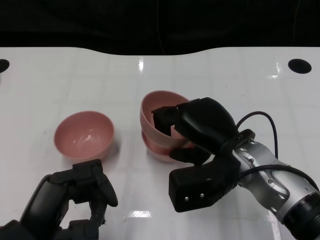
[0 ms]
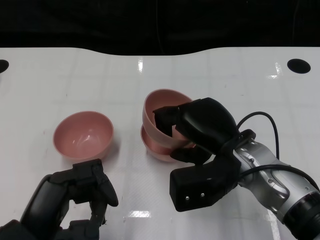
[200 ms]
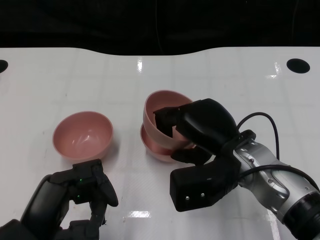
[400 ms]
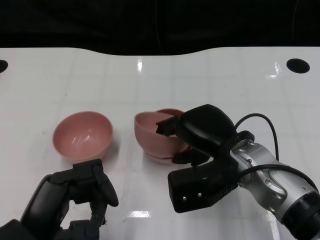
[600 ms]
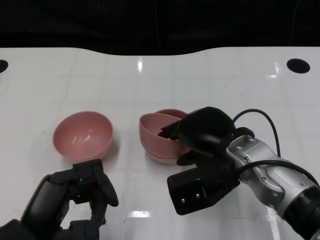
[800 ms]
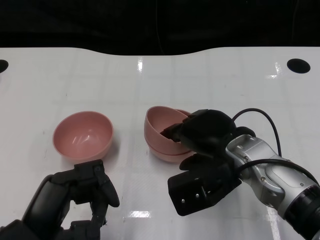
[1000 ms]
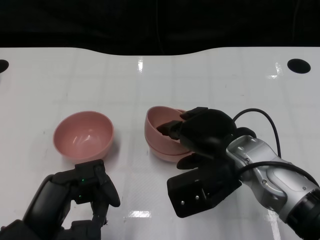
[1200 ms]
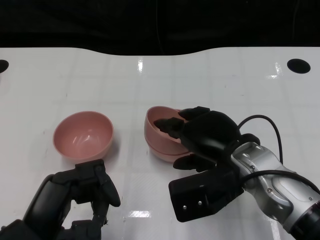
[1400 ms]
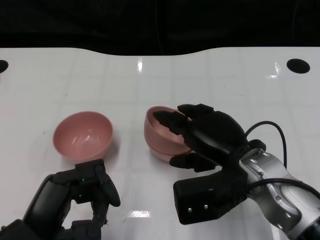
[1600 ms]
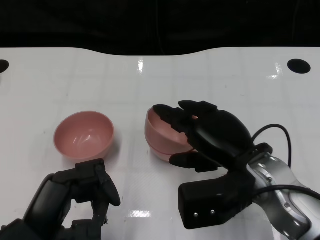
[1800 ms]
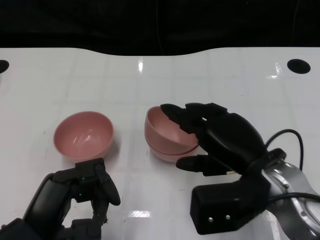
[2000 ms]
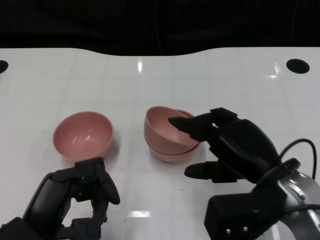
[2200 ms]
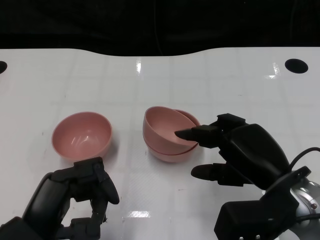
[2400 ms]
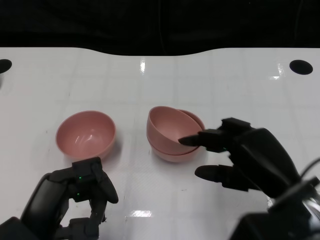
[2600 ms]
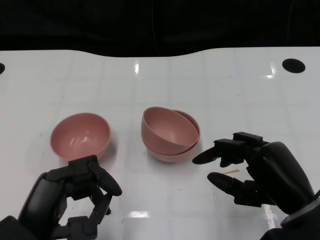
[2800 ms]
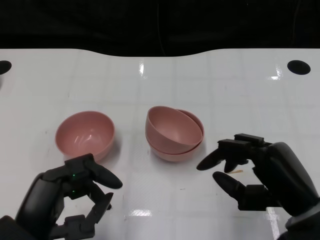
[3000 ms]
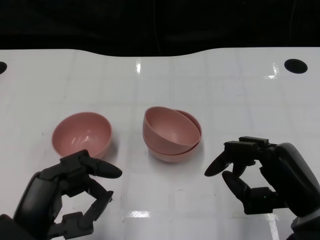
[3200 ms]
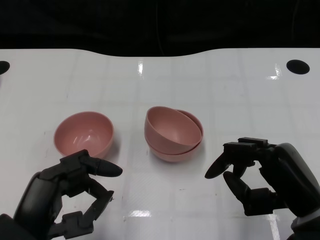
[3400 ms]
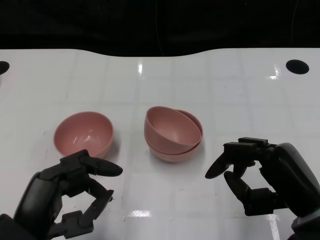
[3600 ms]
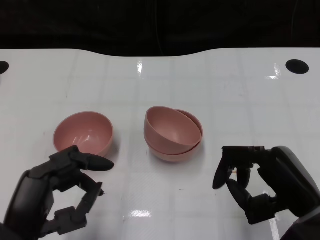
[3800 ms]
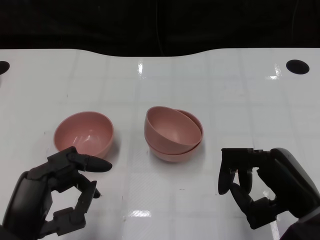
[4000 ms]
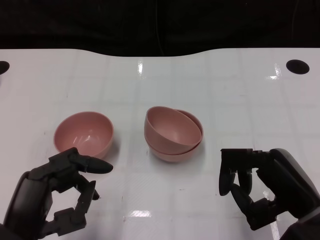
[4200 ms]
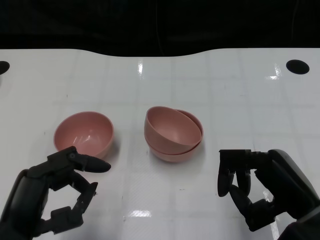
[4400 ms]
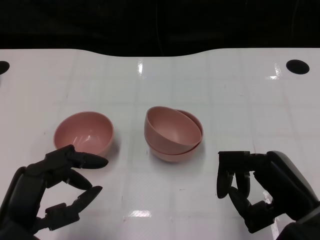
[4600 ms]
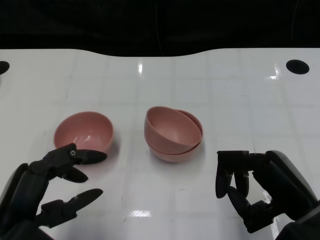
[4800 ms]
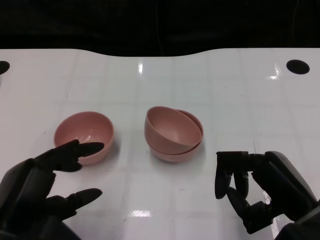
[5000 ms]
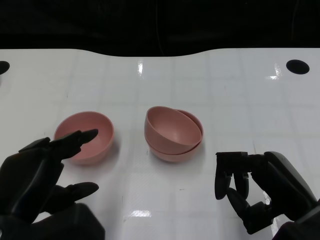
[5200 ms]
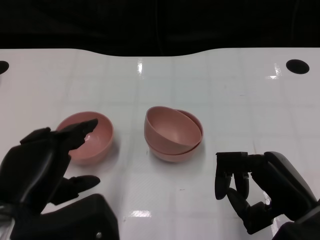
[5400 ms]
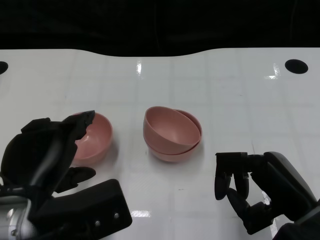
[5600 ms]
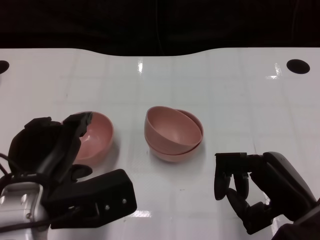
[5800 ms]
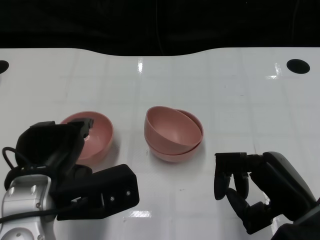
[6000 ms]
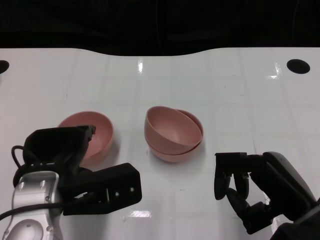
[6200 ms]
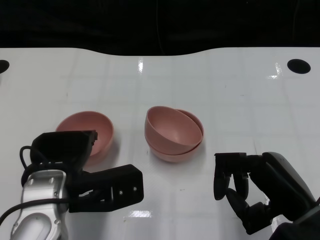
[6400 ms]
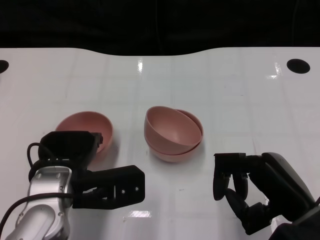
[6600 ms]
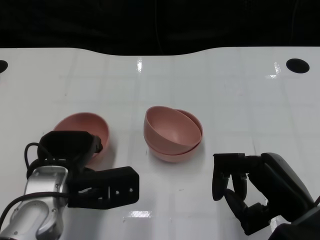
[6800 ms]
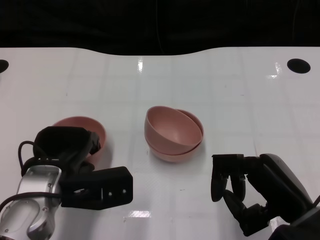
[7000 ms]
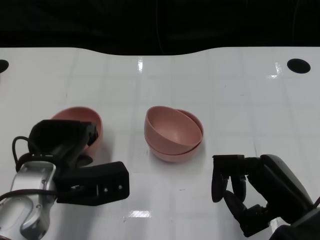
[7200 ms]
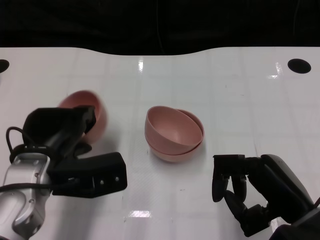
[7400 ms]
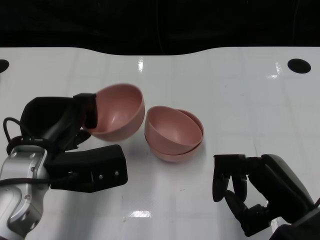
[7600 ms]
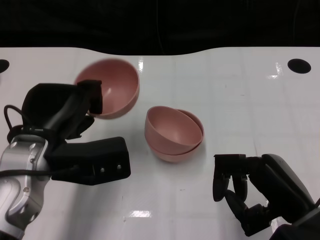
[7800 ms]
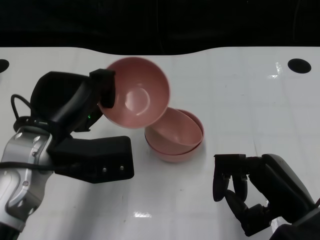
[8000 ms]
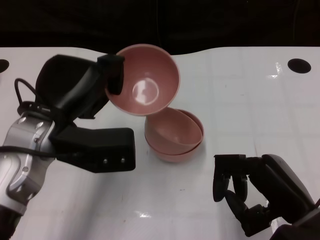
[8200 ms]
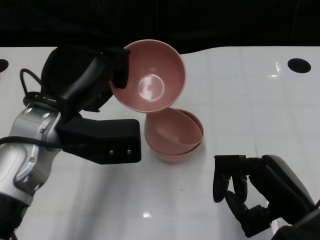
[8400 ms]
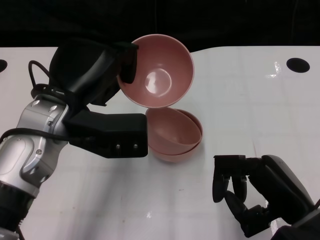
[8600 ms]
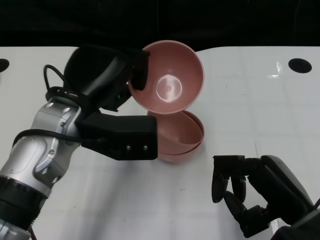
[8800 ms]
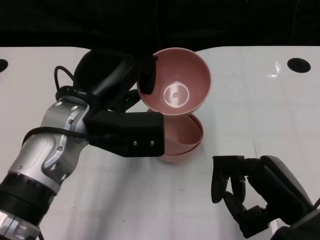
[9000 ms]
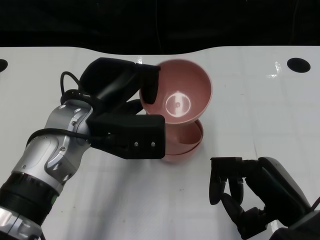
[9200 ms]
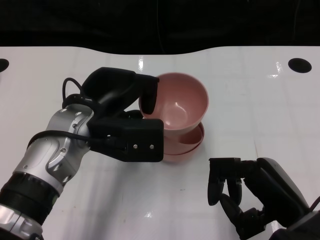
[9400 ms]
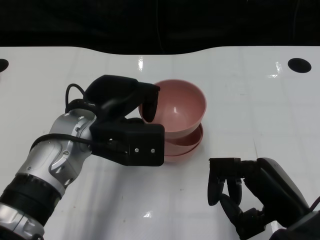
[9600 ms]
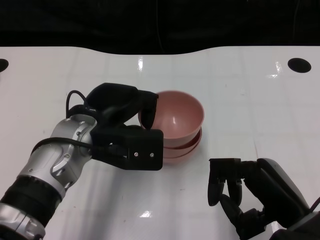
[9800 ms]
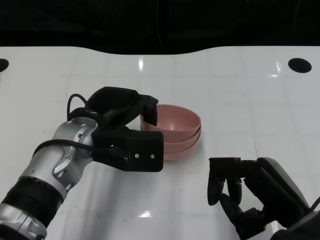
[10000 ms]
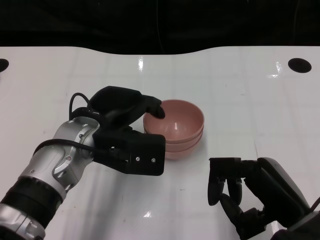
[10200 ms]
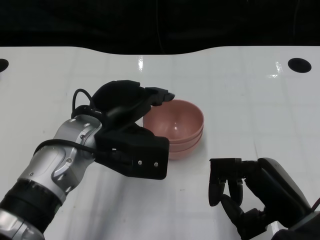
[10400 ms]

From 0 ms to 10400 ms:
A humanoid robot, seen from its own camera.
Task of the whole recording: Pick up the bowl on one side of the table and place it on top of the middle bowl, then pick up the bowl on the other side of the table and place it on top of the middle bowls.
Step, from 2000 ms to 7000 ms: Grasp the bowl on the left with the left gripper.
From 1400 ms to 3000 ms: The right hand heads to the right and backward, covering some 10 cm.
From 3000 ms to 4400 ms: The hands stay close to where they were, moving slightly.
From 4400 ms to 6000 ms: The left hand goes some 5 cm forward.
From 6000 ms to 7400 ms: The left hand shifts by approximately 5 cm.
From 7400 ms to 9000 ms: The left hand is displaced upward and to the right by roughly 10 cm.

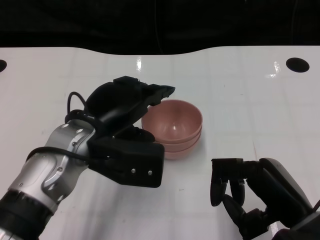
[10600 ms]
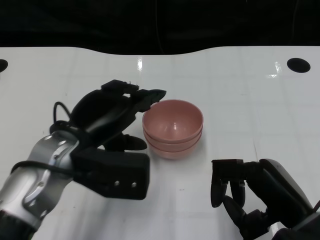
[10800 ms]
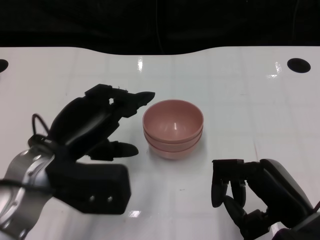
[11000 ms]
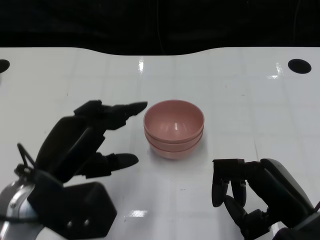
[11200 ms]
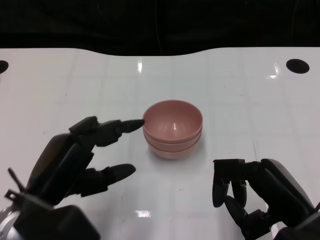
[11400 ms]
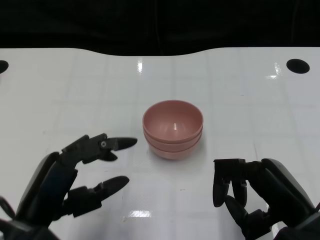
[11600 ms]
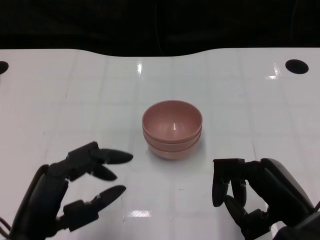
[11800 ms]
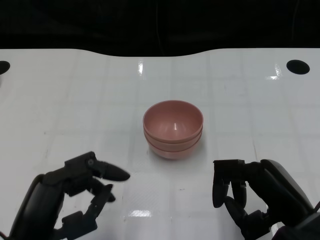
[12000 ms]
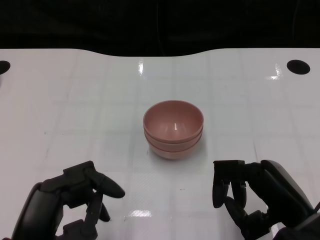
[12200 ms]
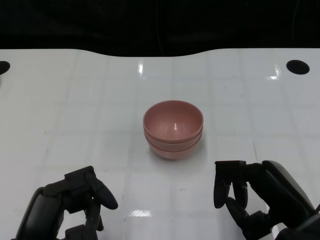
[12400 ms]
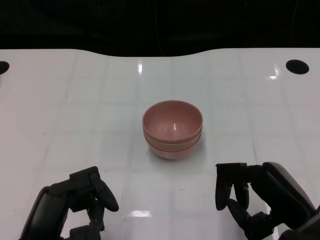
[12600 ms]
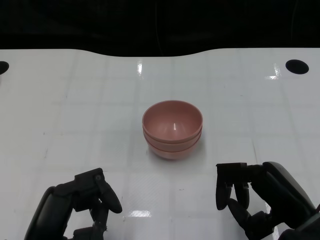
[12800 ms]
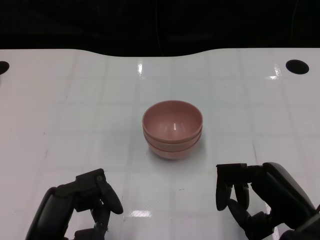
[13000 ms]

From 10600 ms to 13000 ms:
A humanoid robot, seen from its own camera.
Task of the whole recording: Pick up the bowl on one side of the table and place it on top of the middle bowl, then pick up the bowl on the other side of the table and place it on top of the middle bowls.
From 10600 ms to 11800 ms: The left hand heads backward and to the left, covering approximately 15 cm.
From 11800 ms to 13000 ms: The hands make only small movements.

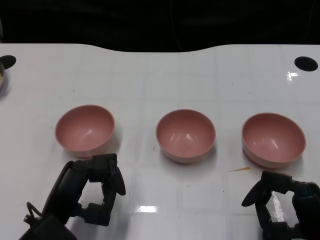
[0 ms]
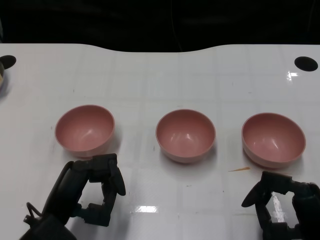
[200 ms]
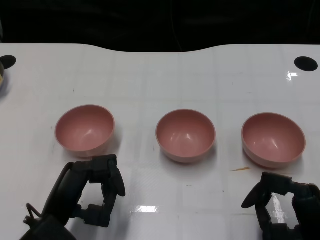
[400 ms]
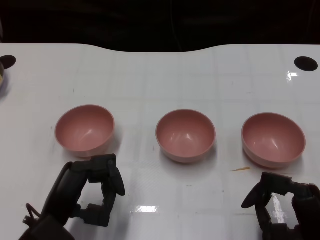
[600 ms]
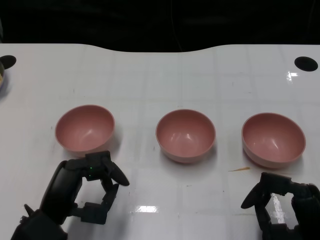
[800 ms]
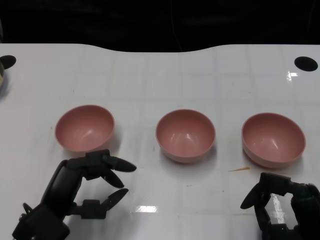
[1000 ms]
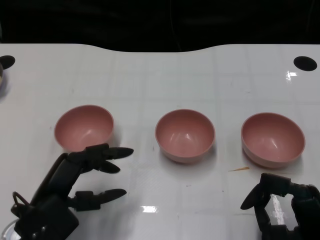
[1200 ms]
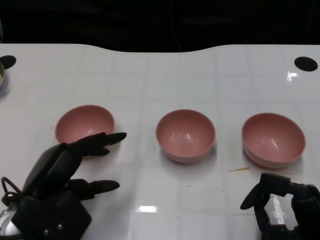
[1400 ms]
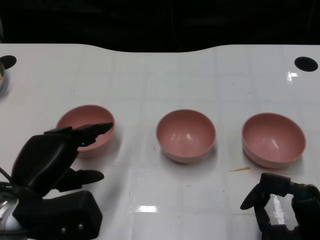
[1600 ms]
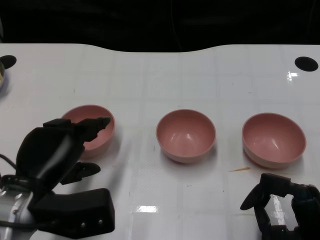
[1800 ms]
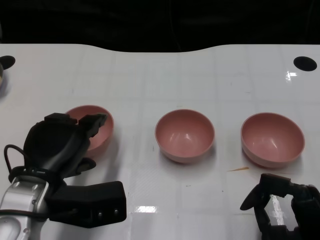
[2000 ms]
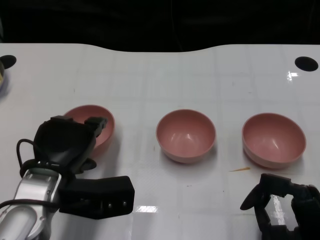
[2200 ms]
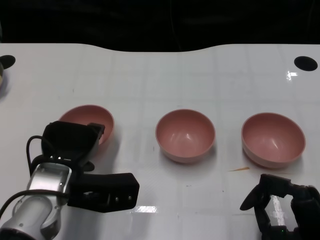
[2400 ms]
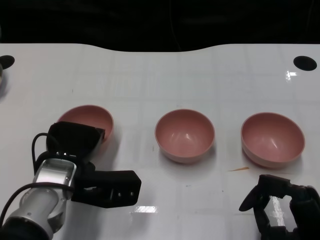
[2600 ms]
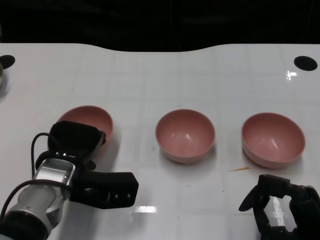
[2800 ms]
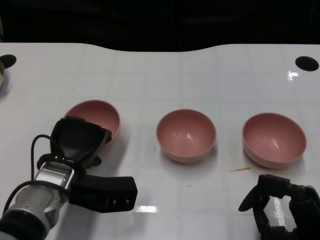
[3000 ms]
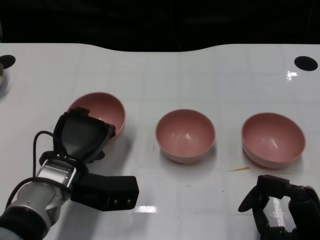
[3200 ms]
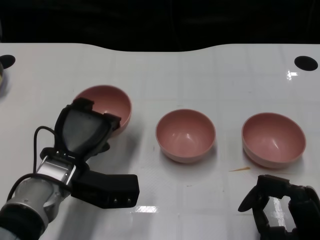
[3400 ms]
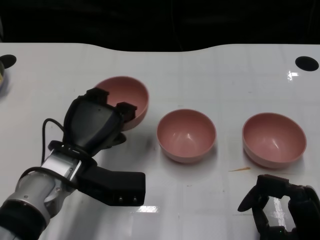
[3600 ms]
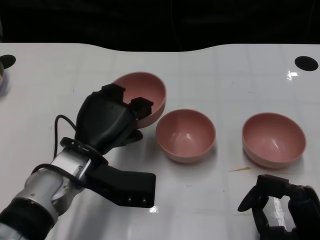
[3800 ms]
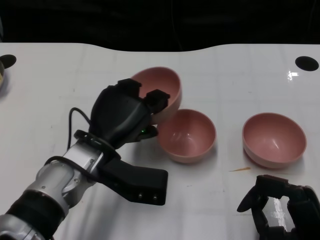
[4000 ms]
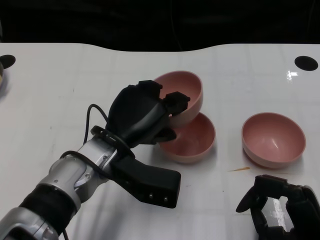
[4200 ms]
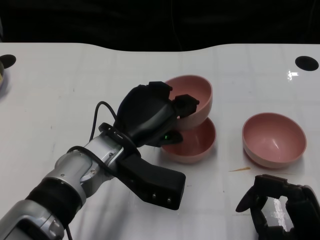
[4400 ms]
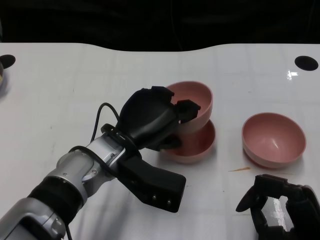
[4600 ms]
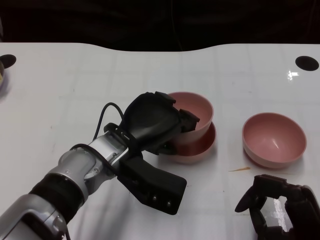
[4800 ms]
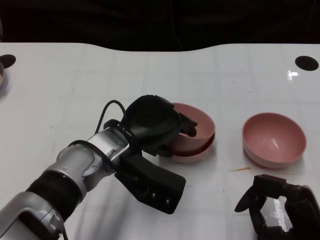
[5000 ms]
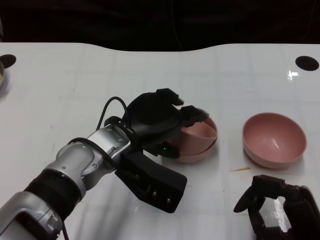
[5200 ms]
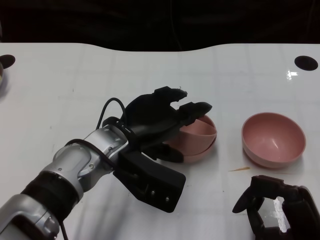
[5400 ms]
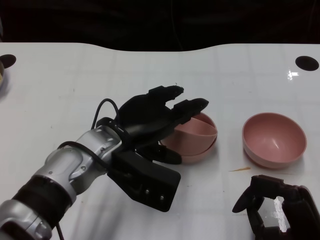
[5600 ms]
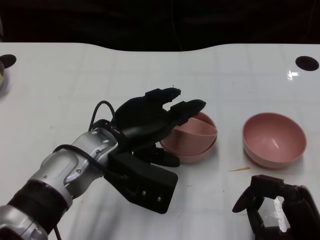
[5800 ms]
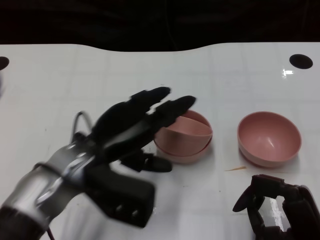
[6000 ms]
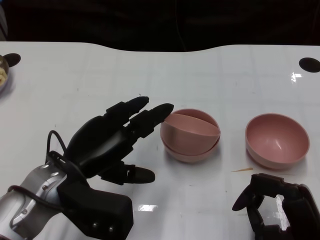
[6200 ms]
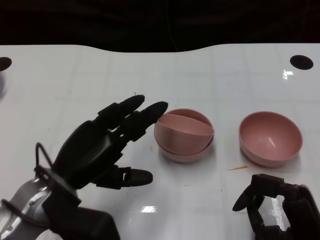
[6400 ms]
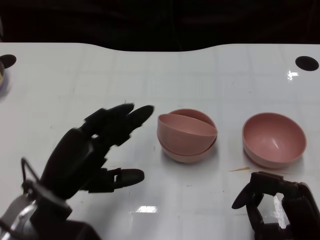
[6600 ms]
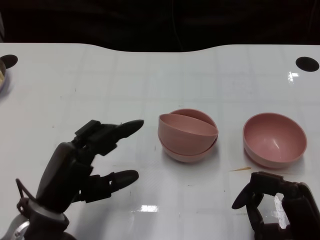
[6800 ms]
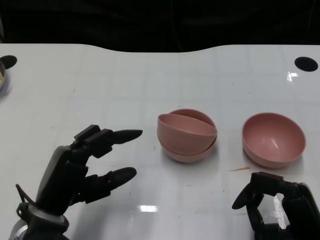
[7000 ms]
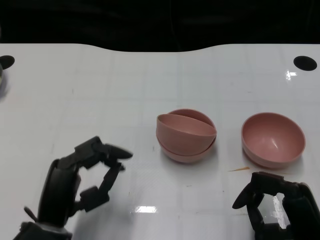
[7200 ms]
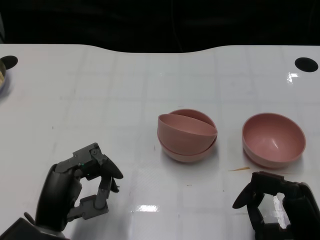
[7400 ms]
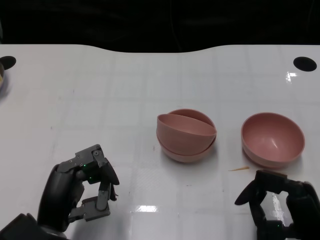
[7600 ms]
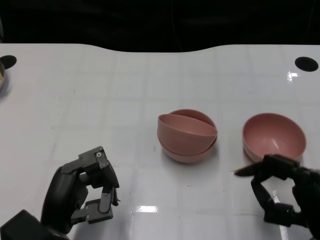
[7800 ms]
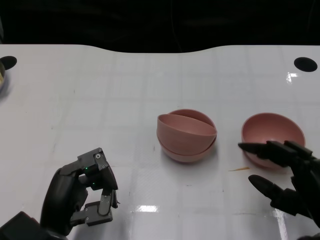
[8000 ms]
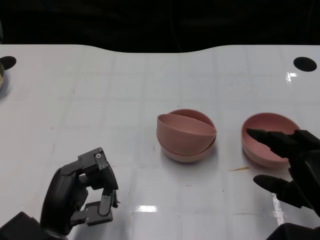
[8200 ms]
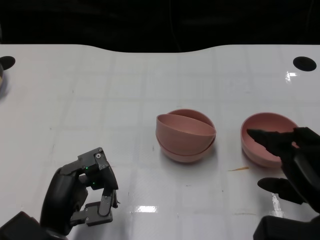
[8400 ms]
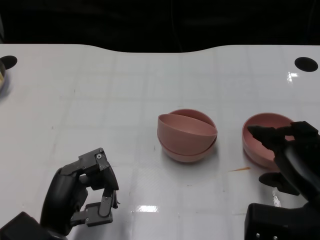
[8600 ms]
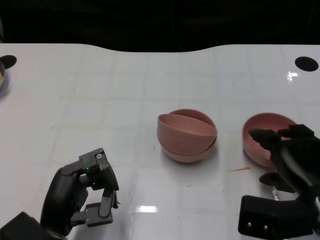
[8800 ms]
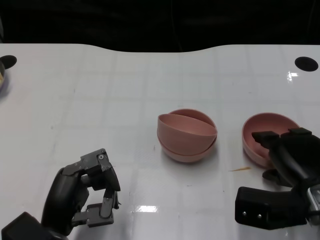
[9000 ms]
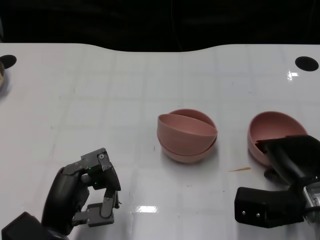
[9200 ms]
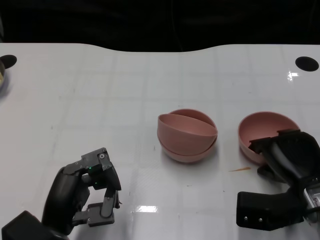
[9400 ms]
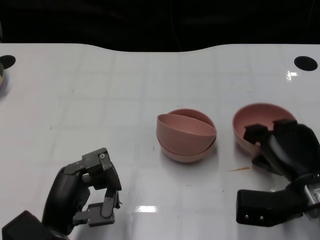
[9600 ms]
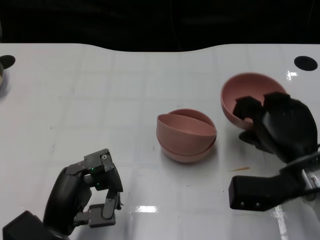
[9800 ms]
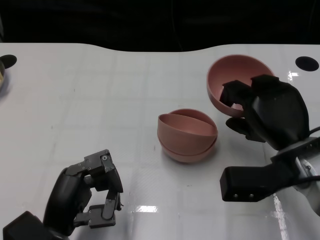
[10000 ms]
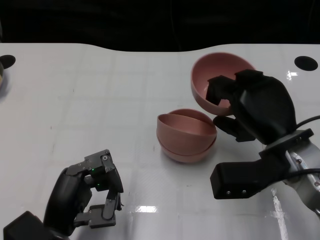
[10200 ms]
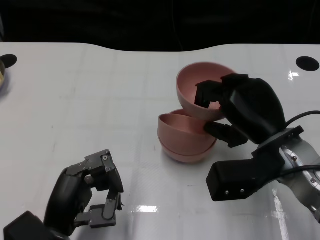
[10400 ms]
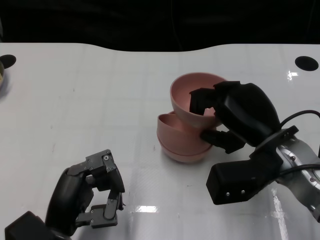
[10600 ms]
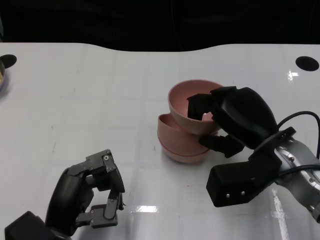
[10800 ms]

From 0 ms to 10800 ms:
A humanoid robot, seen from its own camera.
Task of the whole recording: Pick up the bowl on one side of the table and place it on top of the middle bowl, then pick up the bowl on the other side of the table and place it on top of the middle bowls.
Step, from 1000 ms to 2800 ms: Grasp the bowl on the left with the left gripper.
Step, from 3000 ms to 6400 ms: Place the bowl on the left onto the bowl in the middle with left gripper.
Step, from 6600 ms to 9400 ms: Grasp the bowl on the right with the right gripper.
From 1600 ms to 3000 ms: The left hand shifts approximately 5 cm forward.
From 3000 ms to 4600 ms: The left hand is displaced to the right and upward by some 10 cm.
From 4600 ms to 6200 ms: The left hand moves to the left, some 10 cm.
From 6200 ms to 7800 ms: The left hand heads downward and backward, covering roughly 10 cm.
From 7800 ms to 9200 ms: The right hand goes some 10 cm forward.
From 9200 ms to 10800 ms: The right hand travels upward and to the left by about 10 cm.
